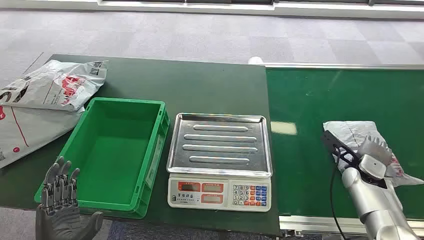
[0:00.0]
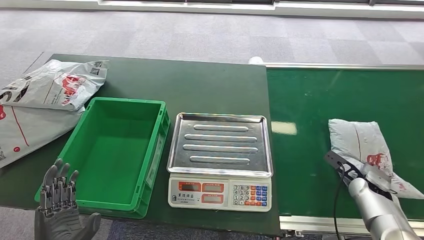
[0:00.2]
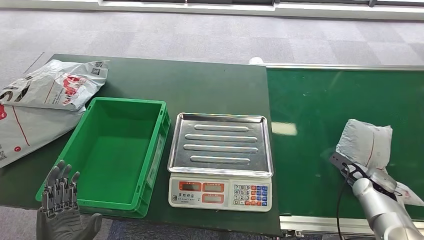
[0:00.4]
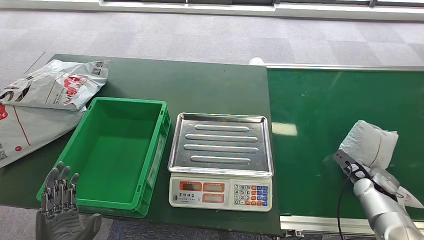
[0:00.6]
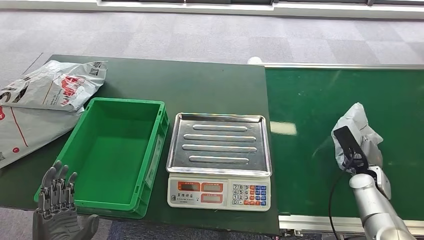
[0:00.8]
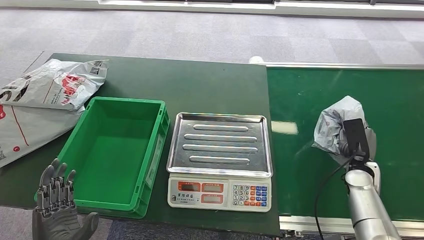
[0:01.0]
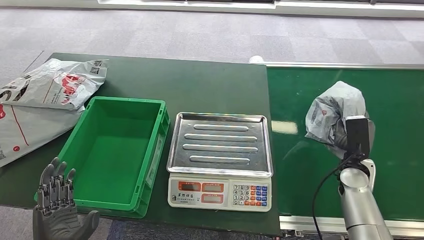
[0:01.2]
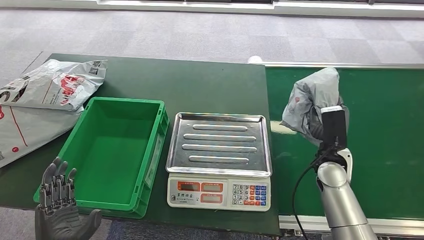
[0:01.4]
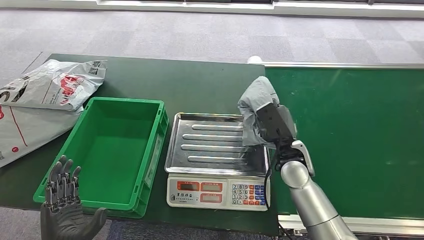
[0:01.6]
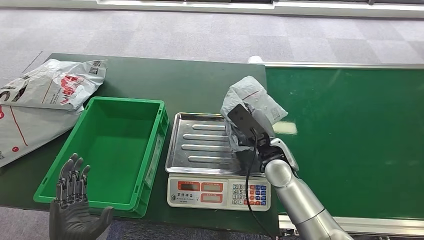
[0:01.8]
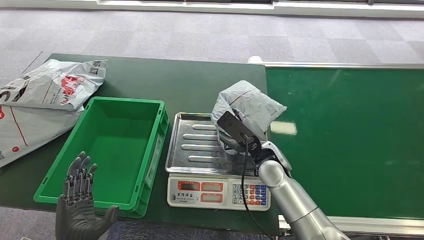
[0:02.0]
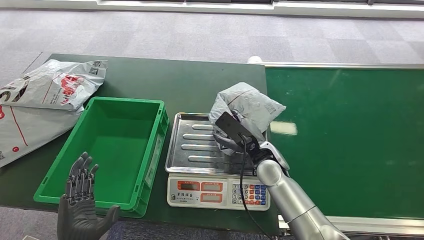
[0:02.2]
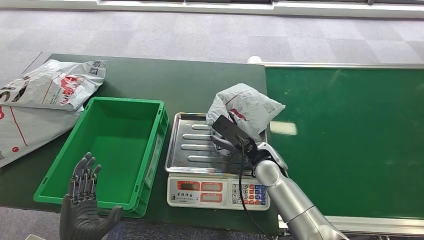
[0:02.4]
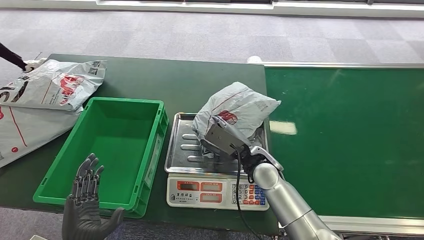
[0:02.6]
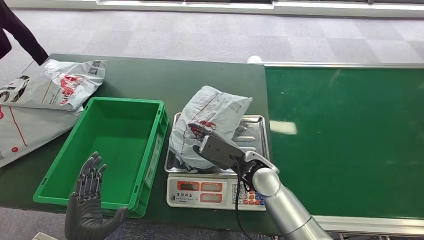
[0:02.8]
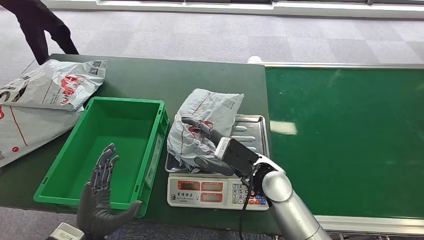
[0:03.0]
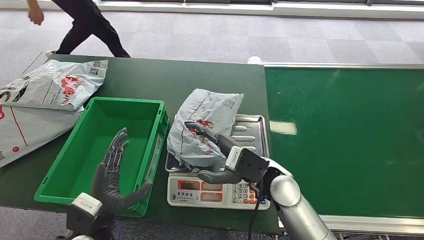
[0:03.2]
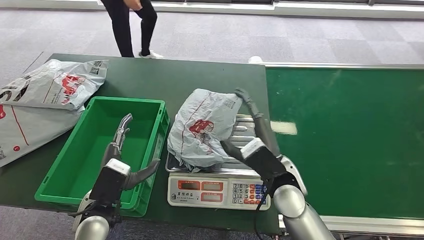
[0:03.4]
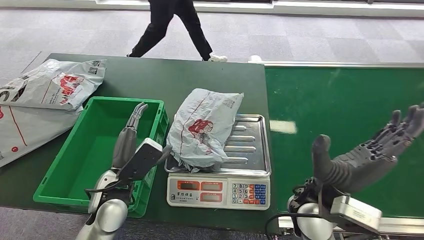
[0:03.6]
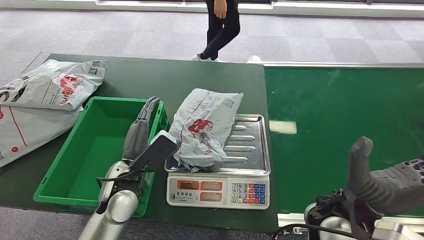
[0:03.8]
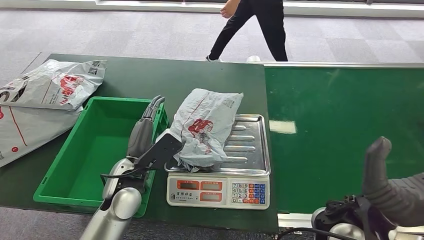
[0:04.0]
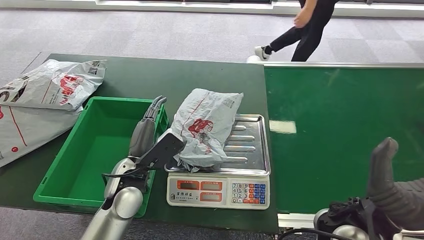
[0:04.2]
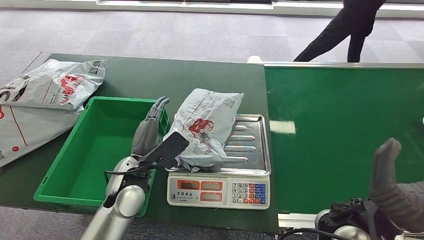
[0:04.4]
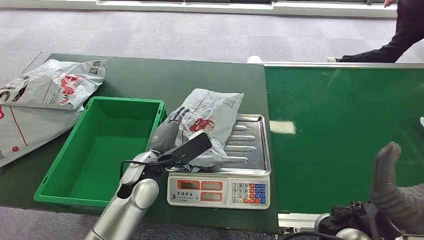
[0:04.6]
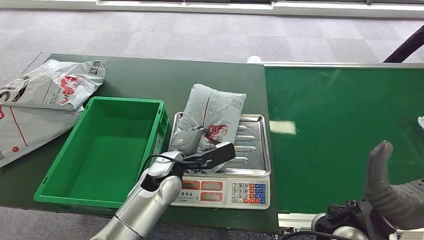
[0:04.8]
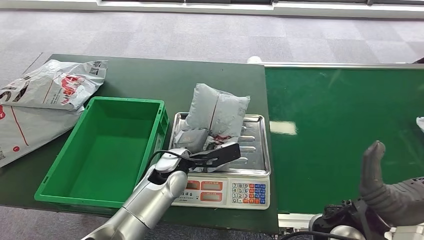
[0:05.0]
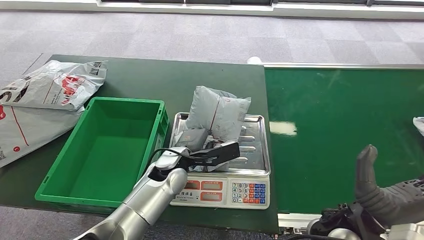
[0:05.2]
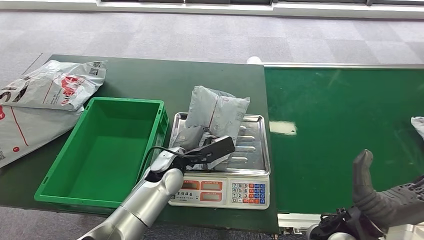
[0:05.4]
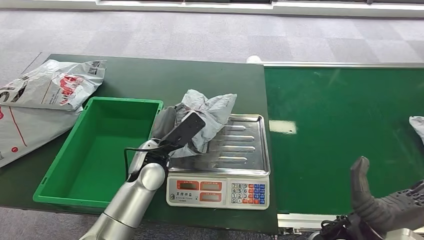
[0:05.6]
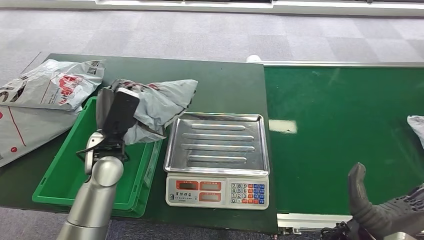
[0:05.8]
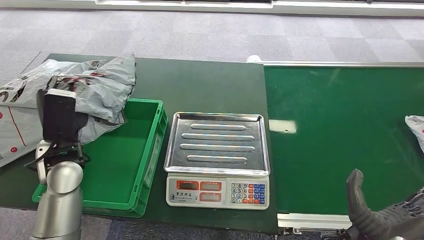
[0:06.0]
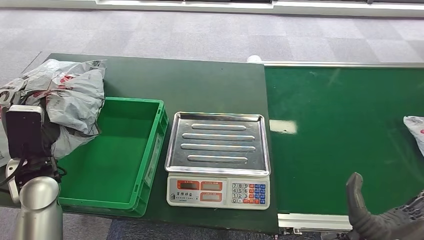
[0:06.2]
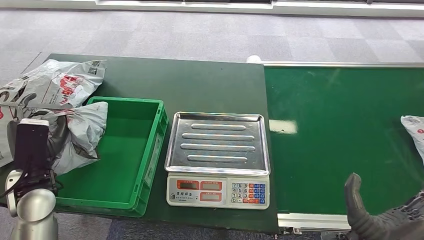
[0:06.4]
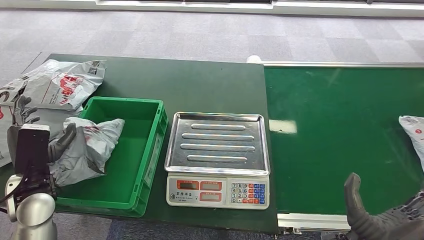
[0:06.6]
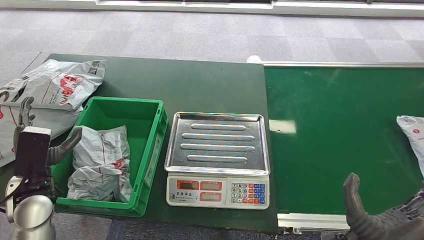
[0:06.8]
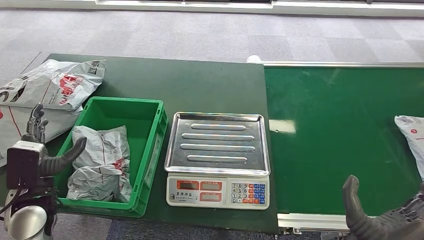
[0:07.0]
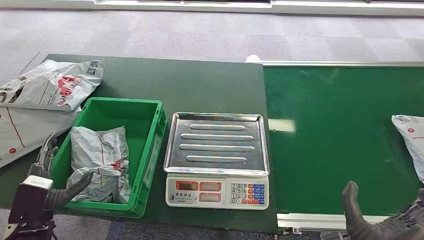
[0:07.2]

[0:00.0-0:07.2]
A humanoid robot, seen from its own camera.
Step, 0:00.0 to 0:01.2: Pick up the package from the conveyor belt.
Step, 0:01.4 to 0:03.2: Place the package onto the inbound machine.
Step, 0:04.4 to 0:06.0: Pick up the package from the inbound machine.
Step, 0:06.2 to 0:07.0: Place the package into the parcel locker.
0:01.4 to 0:02.8: The right hand heads to the left, covering roughly 20 cm.
0:05.8 to 0:07.2: The left hand is displaced to the left, backward and downward by approximately 25 cm.
